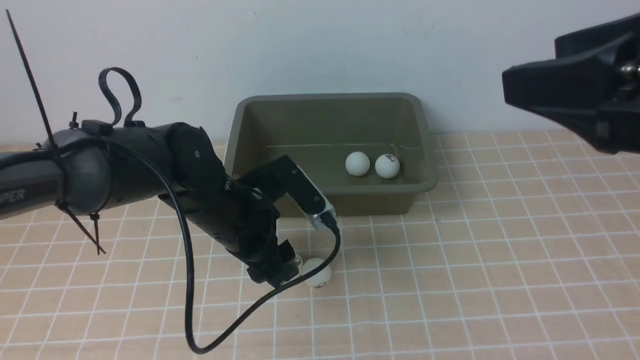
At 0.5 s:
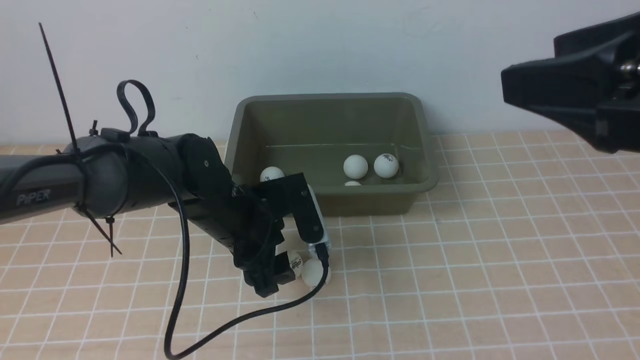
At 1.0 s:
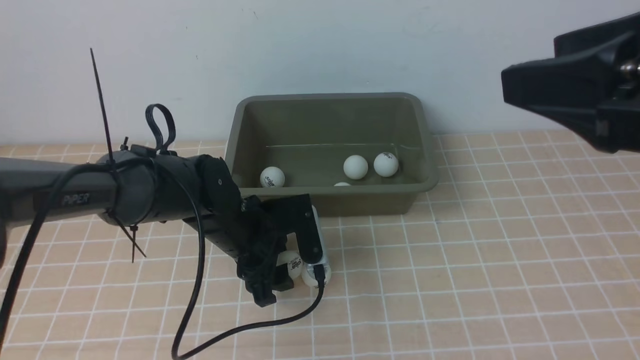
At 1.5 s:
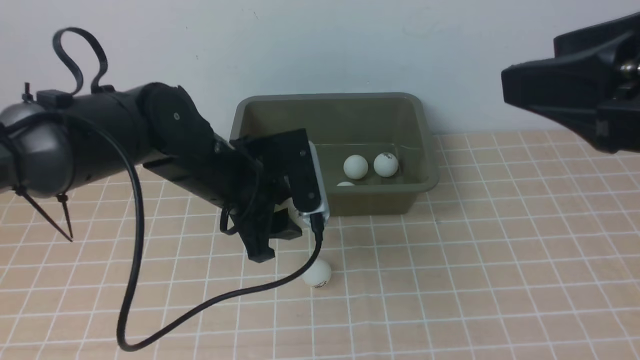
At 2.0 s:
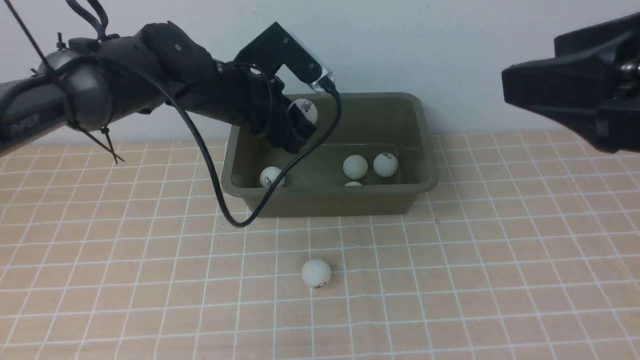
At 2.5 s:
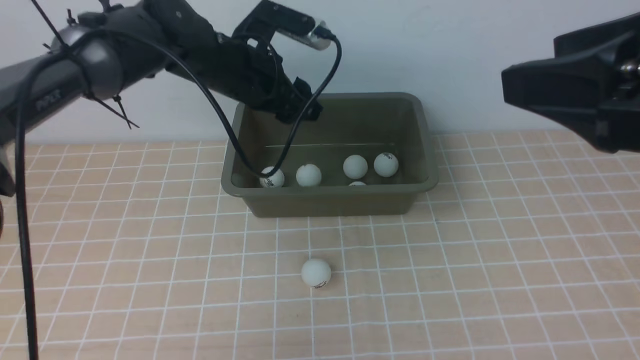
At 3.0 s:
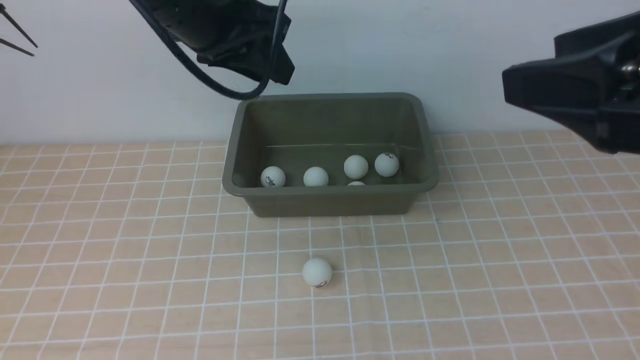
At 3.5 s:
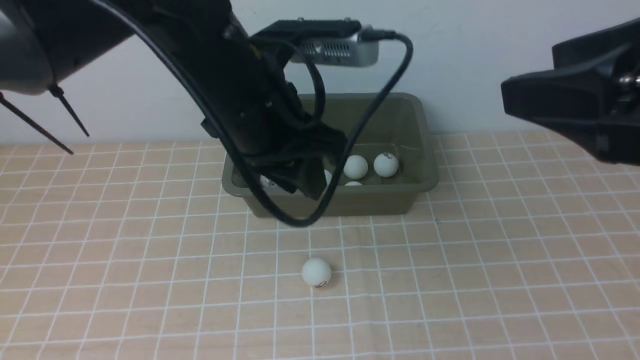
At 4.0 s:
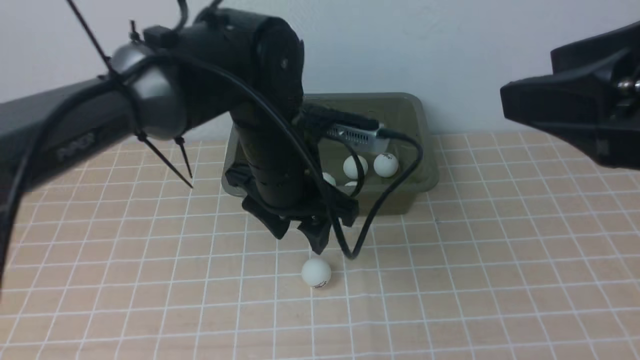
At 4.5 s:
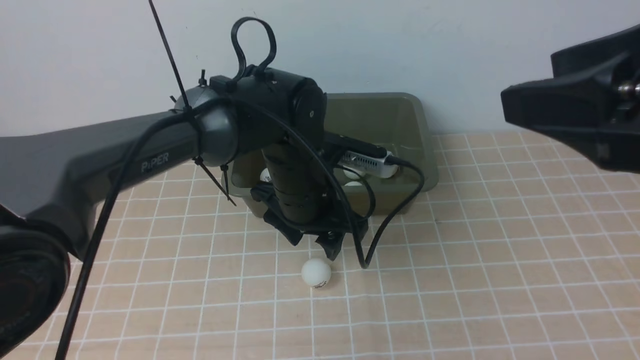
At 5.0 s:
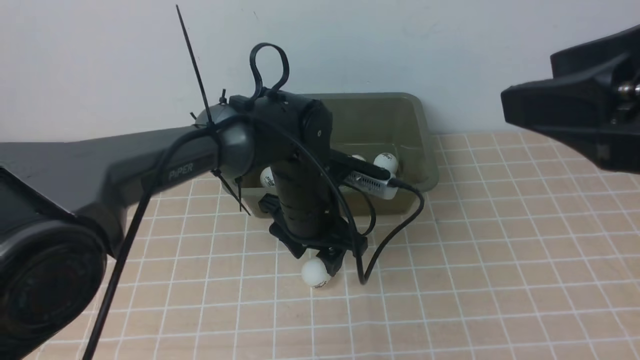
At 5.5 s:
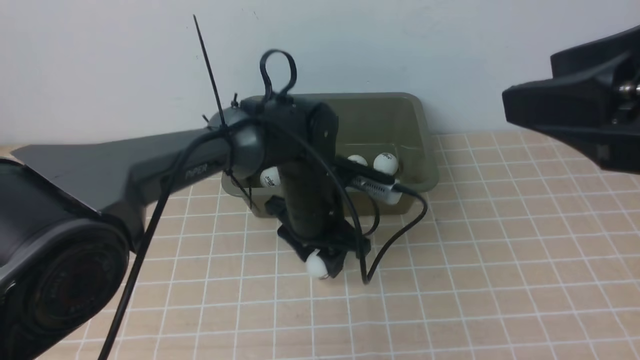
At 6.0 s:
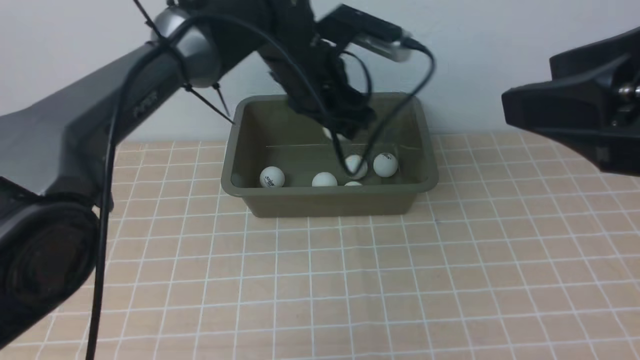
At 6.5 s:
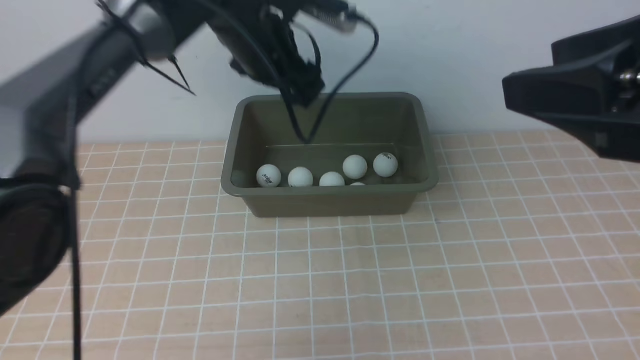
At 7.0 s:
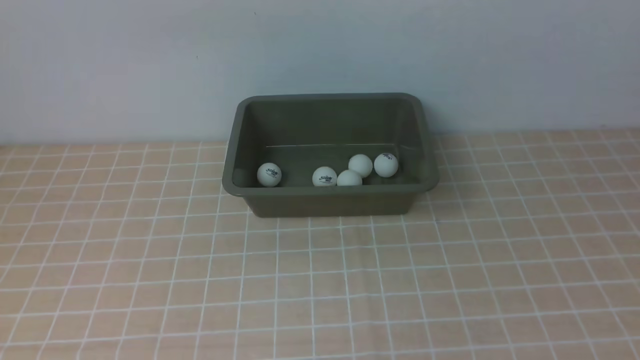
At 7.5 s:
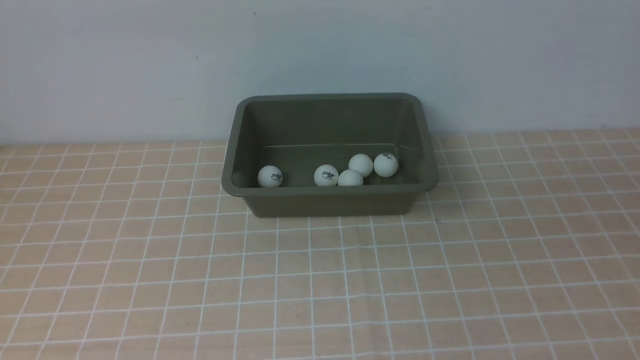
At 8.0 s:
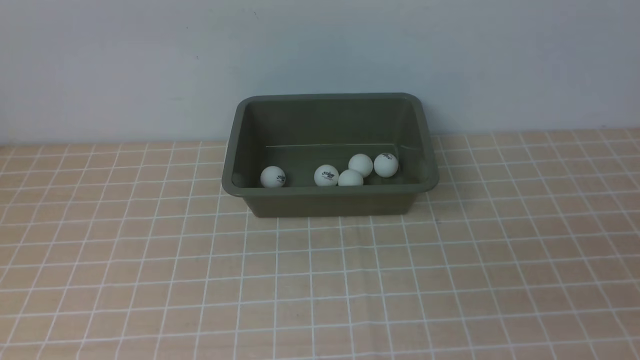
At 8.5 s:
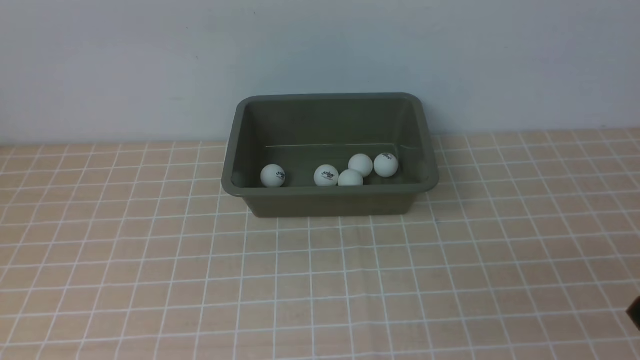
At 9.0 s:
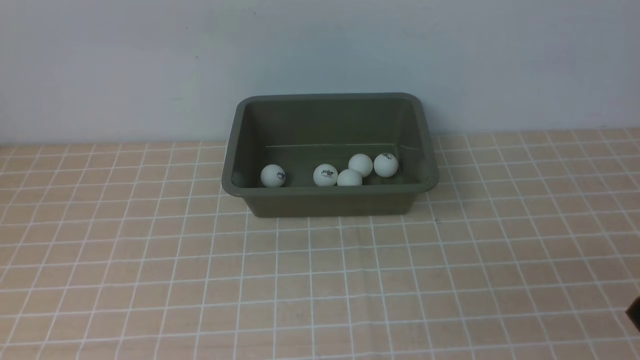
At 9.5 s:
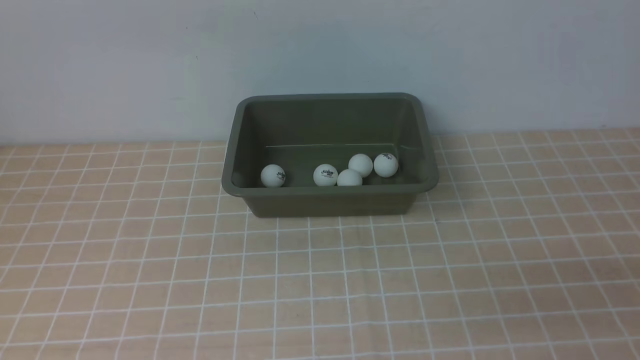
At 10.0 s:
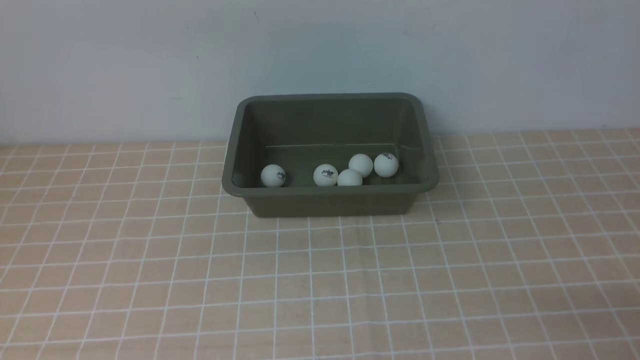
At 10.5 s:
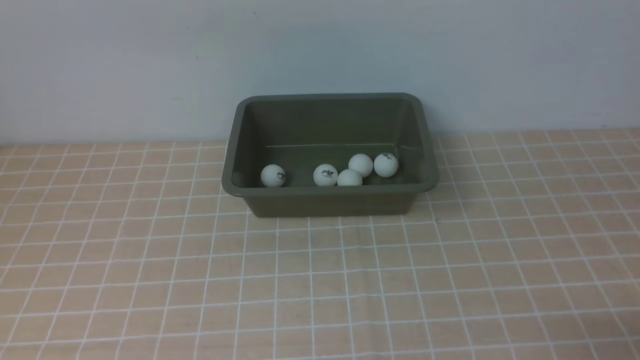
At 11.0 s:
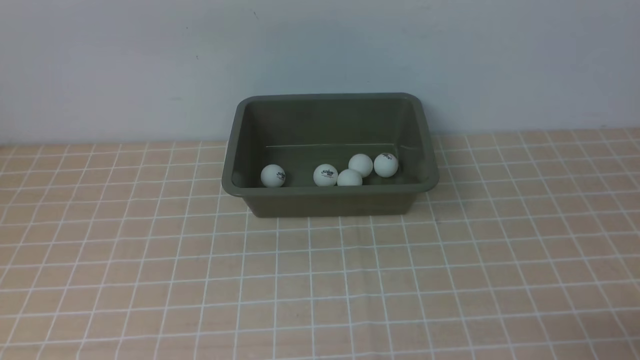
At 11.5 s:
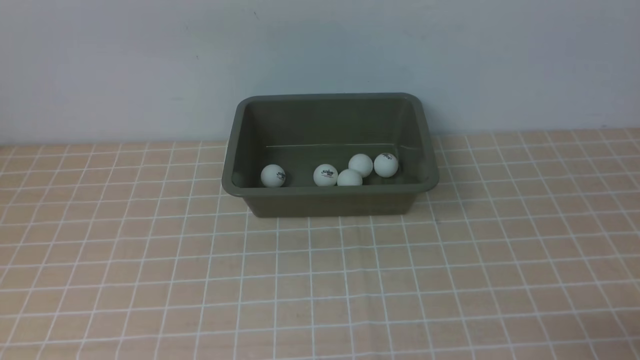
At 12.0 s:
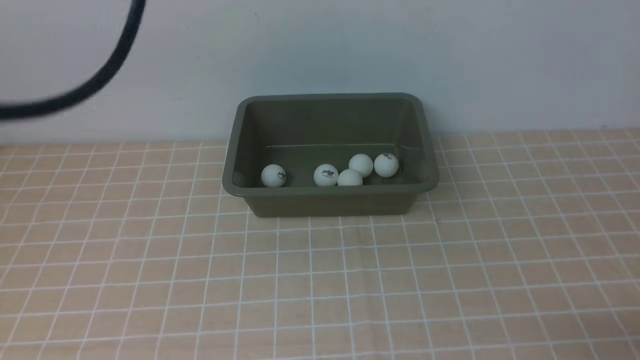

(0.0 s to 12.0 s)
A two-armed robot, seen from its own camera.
Step, 0.0 s - 1.5 s: use the left arm to clamp the table tennis ball closest to it.
Step, 2.0 s - 3.0 s: use the left arm to put the table tennis ball into the box.
Step, 3.5 s - 6.0 s: use the left arm to clamp the table tennis ball closest to it.
Step, 6.5 s - 7.0 s: use the left arm to put the table tennis ball into the box.
0.0 s - 2.0 s: The left gripper shifts about 10 cm forward and upward.
2.0 s - 4.0 s: The left gripper travels backward and to the right by some 10 cm, and closes, then reopens.
4.0 s - 6.0 s: The left gripper heads forward, covering roughly 10 cm, and moves roughly 10 cm downward and comes back.
6.0 s - 8.0 s: The left gripper shifts approximately 30 cm upward and backward, and closes its fingers, while the right gripper shifts about 20 cm downward, backward and to the right, and closes its fingers.
10.0 s - 12.0 s: The left gripper heads to the left, covering roughly 5 cm.

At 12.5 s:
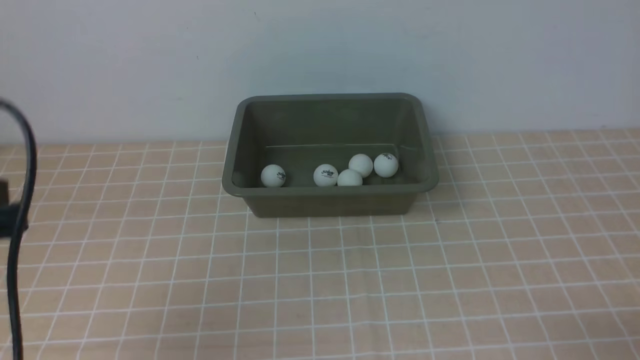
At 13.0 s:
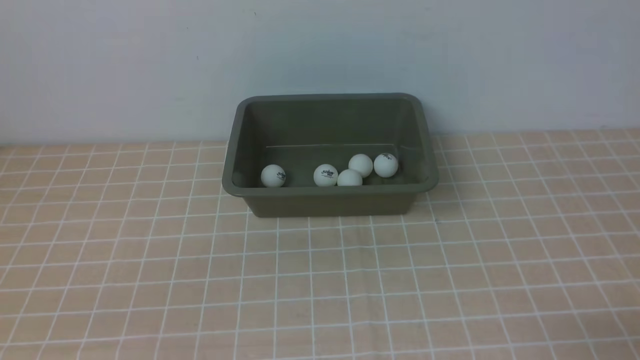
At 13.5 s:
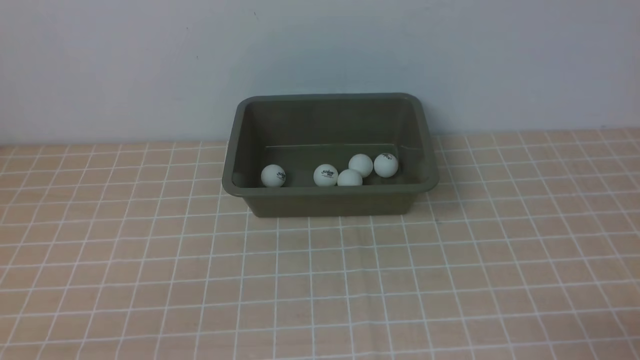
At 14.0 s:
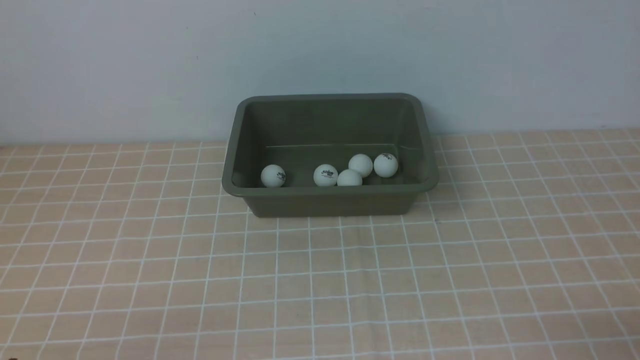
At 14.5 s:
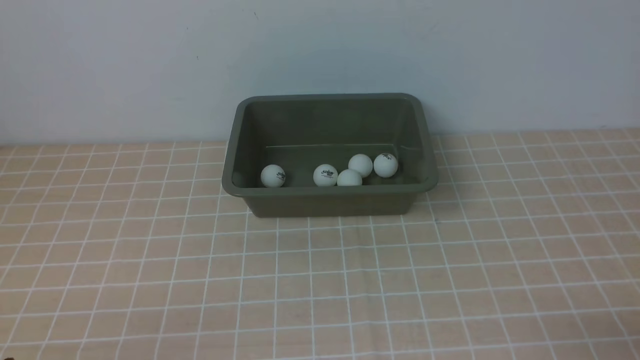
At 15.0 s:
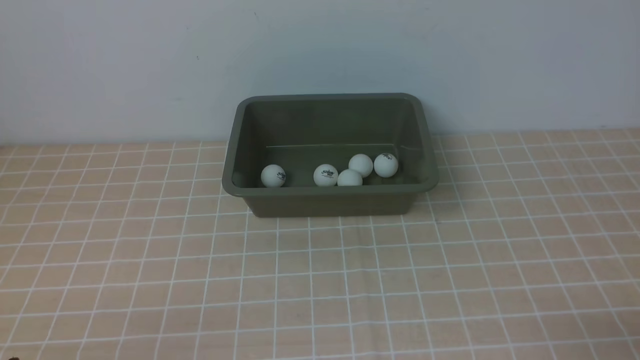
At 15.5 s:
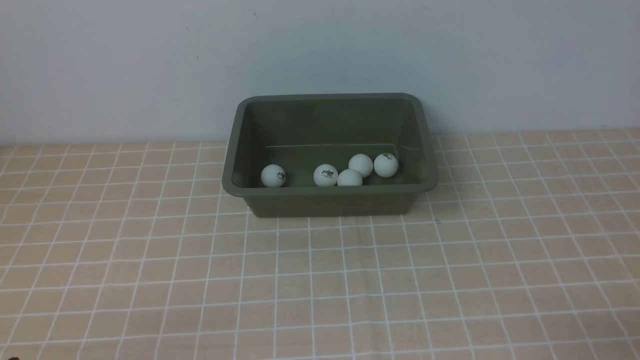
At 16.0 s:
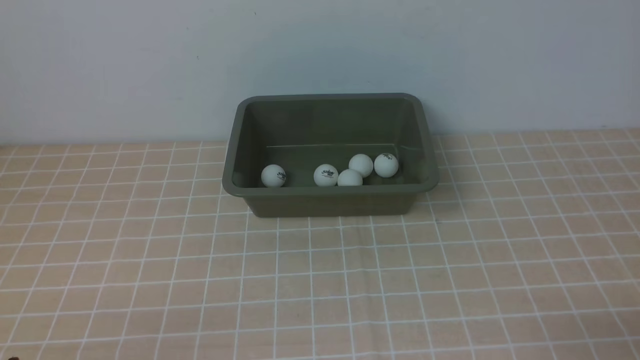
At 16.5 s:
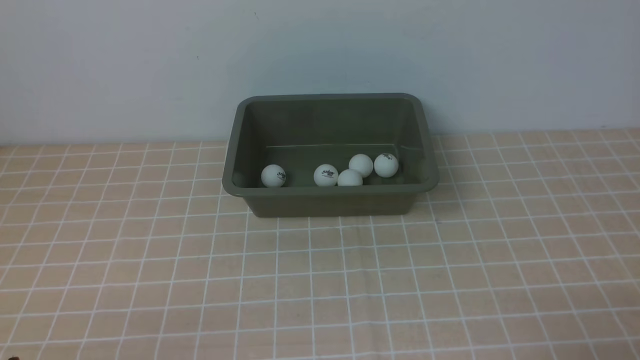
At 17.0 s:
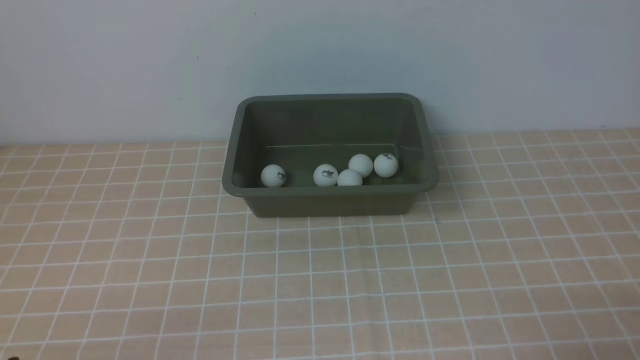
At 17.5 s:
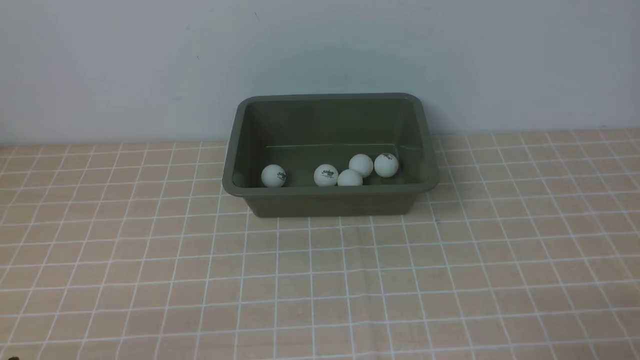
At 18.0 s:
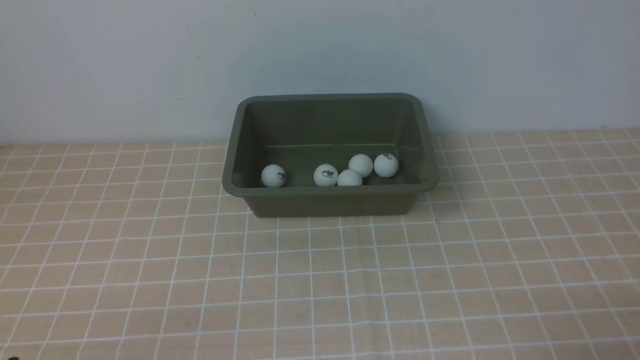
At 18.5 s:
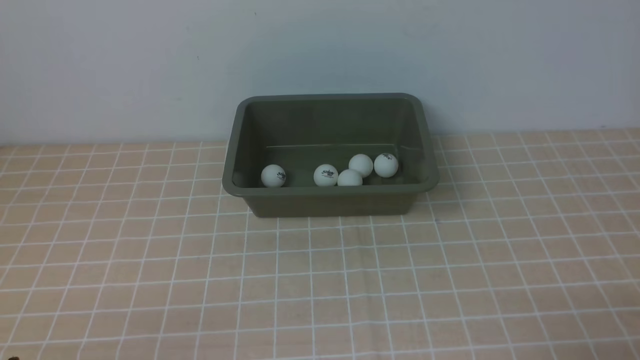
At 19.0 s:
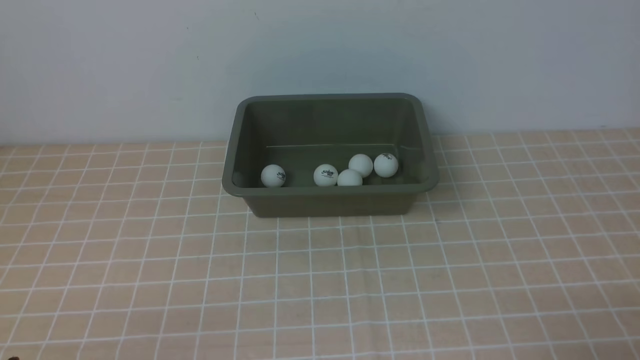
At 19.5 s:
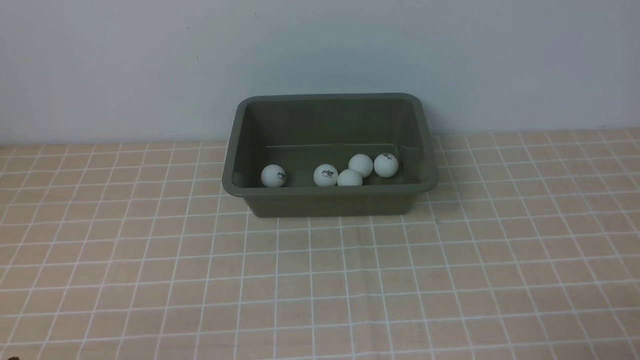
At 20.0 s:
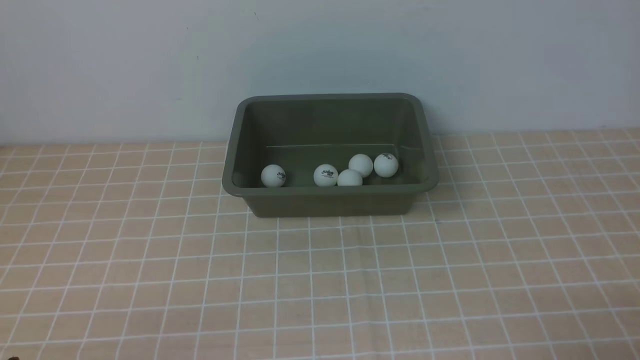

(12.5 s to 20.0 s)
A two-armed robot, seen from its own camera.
12.5 s - 14.5 s: The left gripper shifts approximately 20 cm downward and backward.
16.5 s - 20.0 s: Both grippers stay about where they are.
